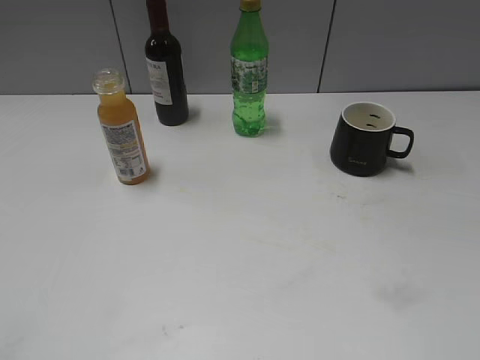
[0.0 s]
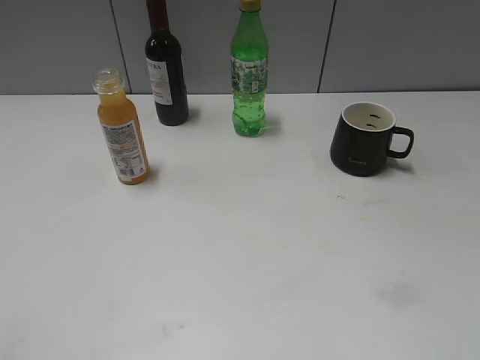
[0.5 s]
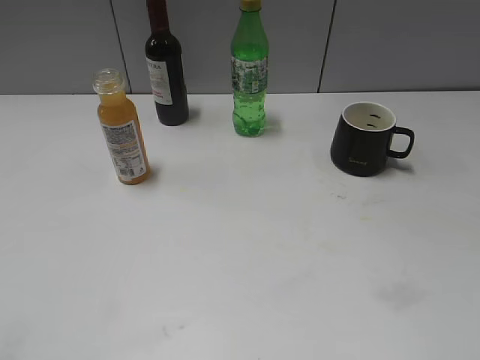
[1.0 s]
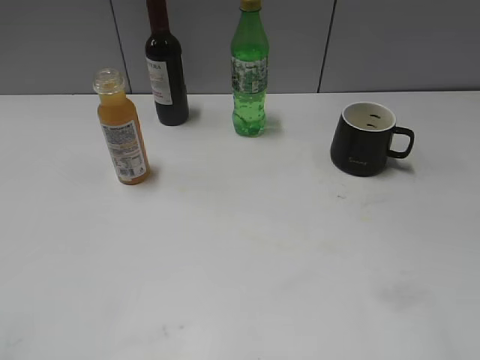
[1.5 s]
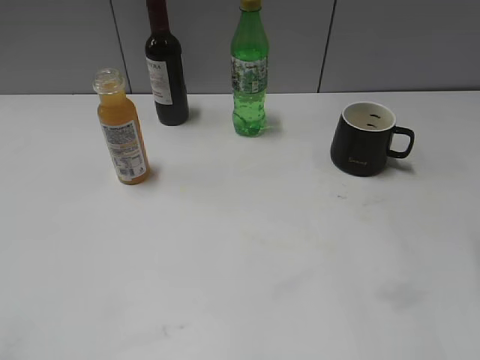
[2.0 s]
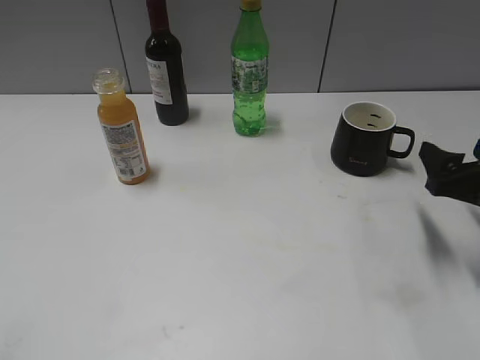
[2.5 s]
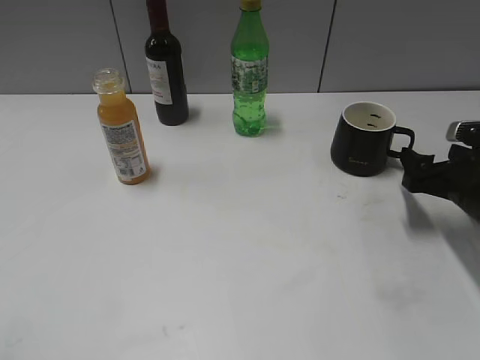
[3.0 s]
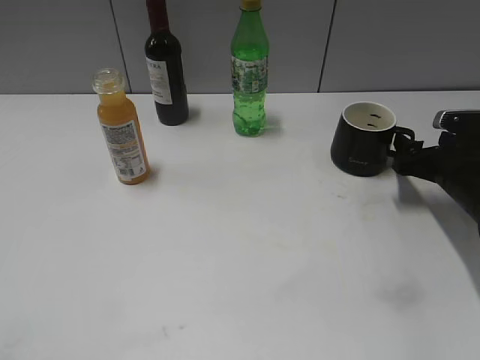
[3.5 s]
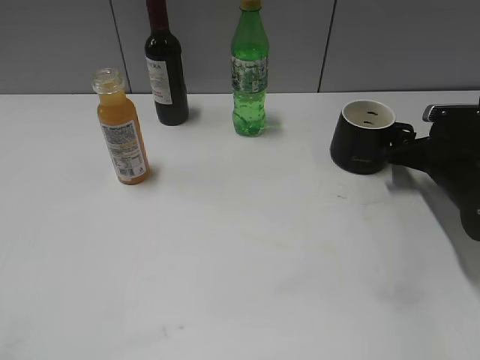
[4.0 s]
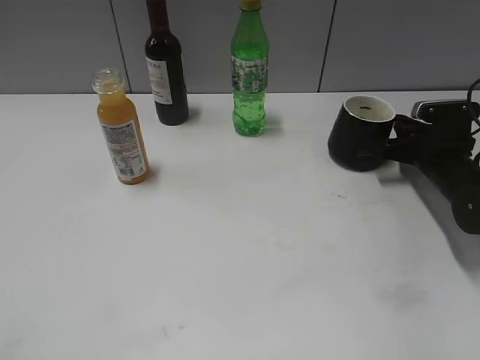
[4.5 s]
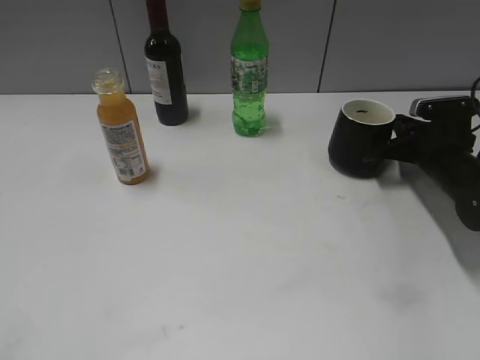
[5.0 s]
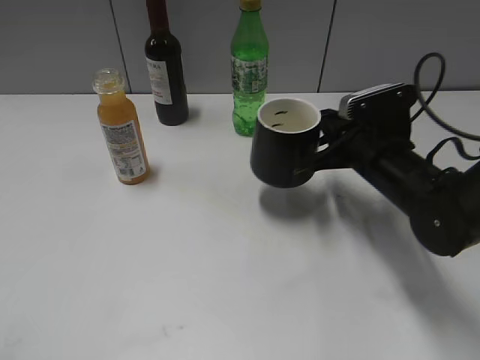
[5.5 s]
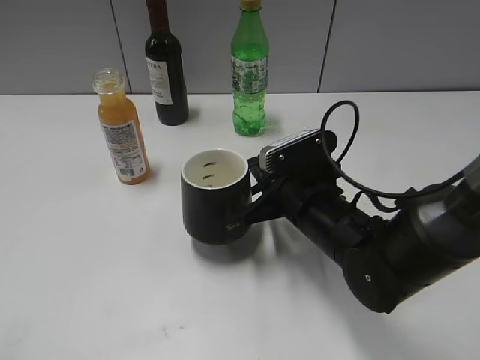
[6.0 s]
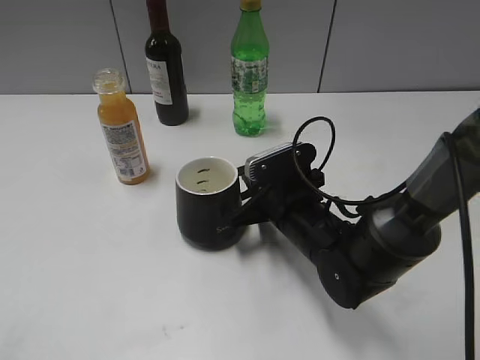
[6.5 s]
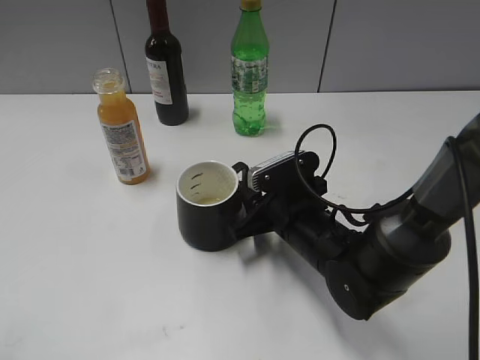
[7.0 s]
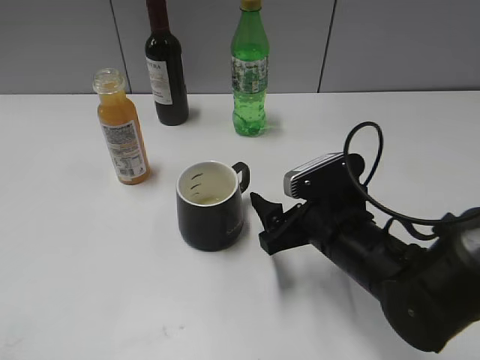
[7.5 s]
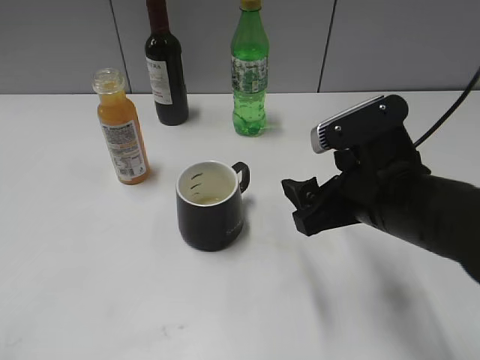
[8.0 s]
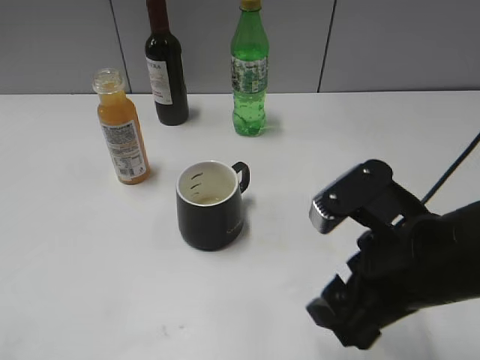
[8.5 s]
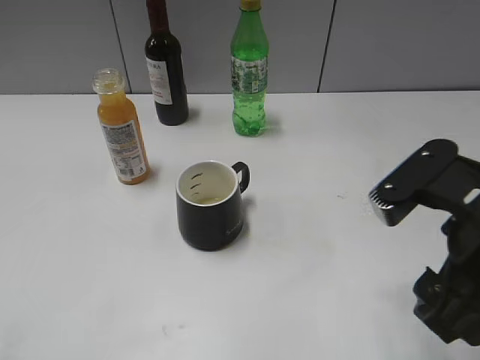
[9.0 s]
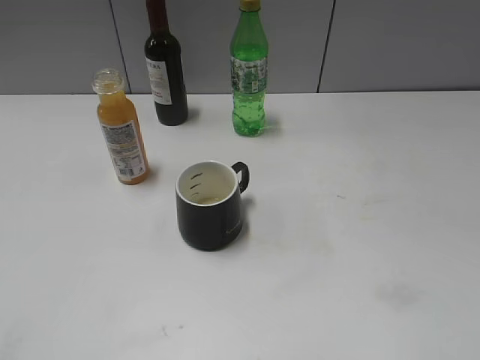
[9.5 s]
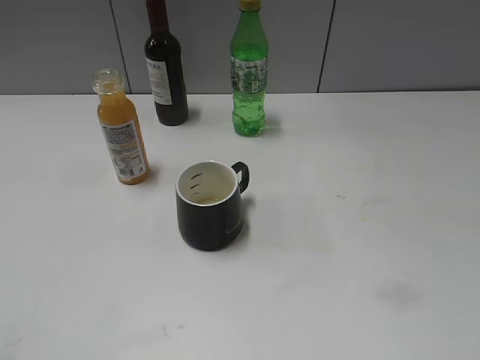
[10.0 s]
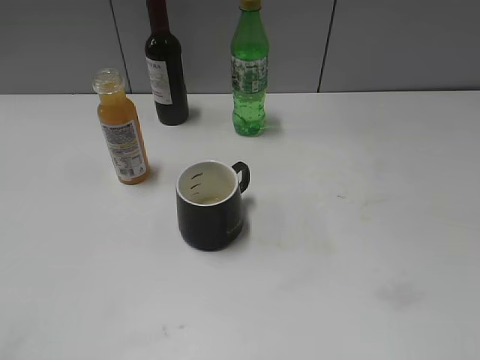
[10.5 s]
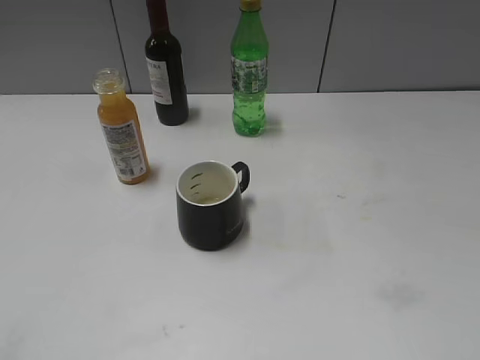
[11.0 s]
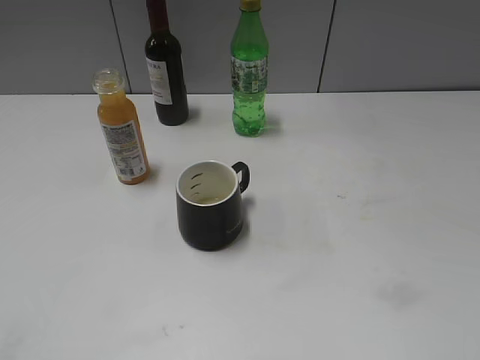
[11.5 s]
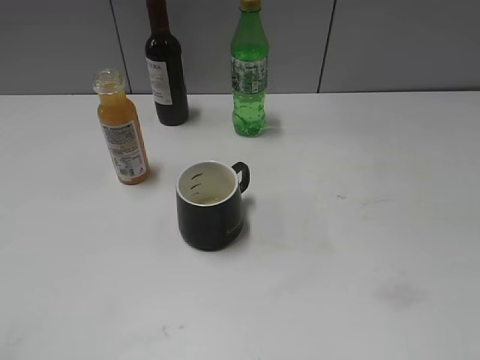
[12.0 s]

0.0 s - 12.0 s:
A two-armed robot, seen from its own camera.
Step, 2.5 s - 4.5 s: Grasp the black cup with right gripper.
Step, 5.5 s - 7.0 s: Place the black cup in the center of view with right gripper.
2.0 s - 4.0 s: The right gripper moves forward and downward, roughly 30 cm.
4.0 s - 6.0 s: The right gripper is displaced to the left and backward by some 20 cm, and closes up.
6.0 s - 8.0 s: The right gripper shifts some 10 cm upward and backward, and opens.
8.0 s - 10.0 s: The right gripper heads backward, to the right and upward, covering roughly 25 cm.

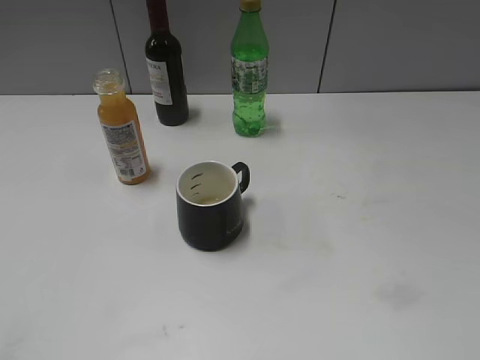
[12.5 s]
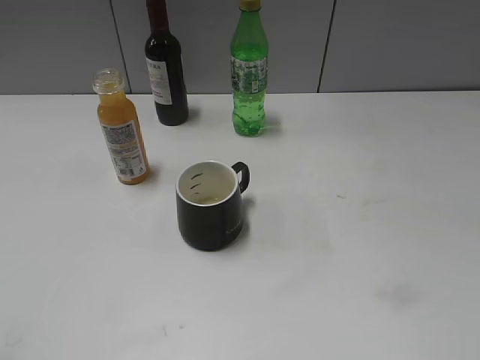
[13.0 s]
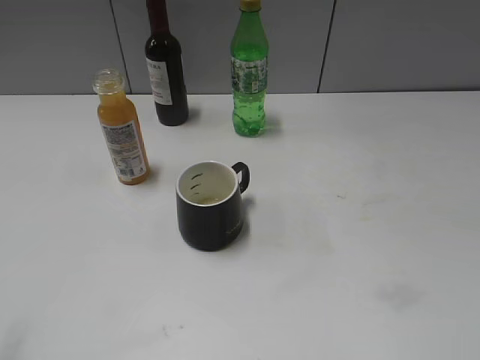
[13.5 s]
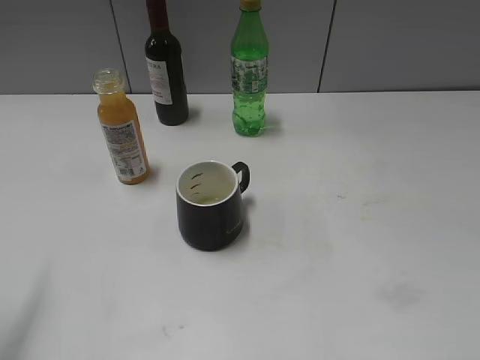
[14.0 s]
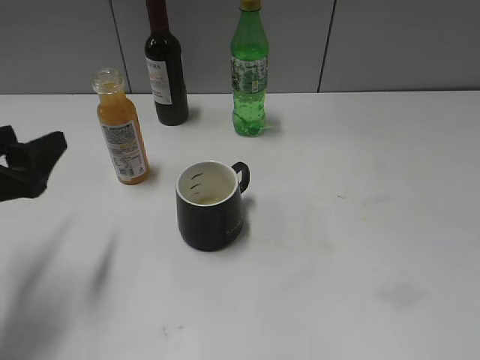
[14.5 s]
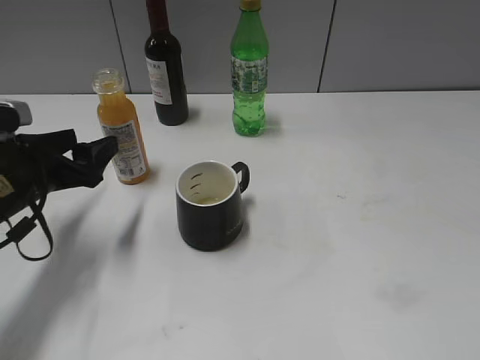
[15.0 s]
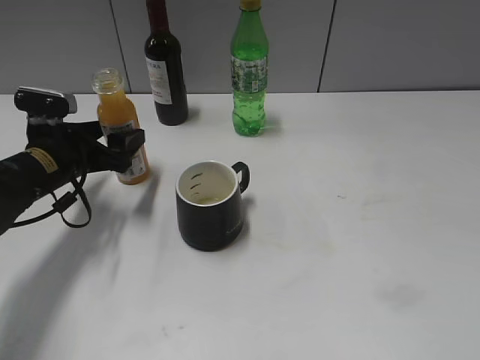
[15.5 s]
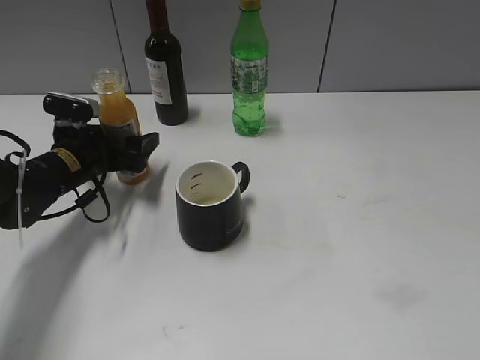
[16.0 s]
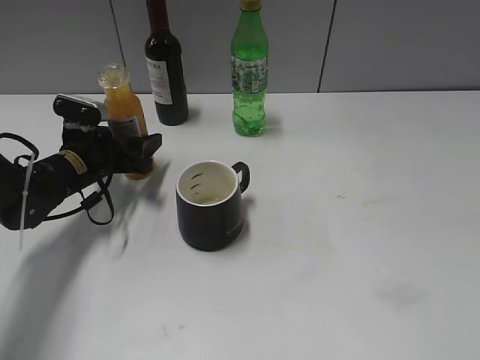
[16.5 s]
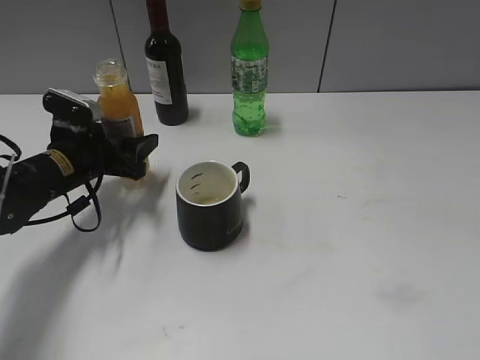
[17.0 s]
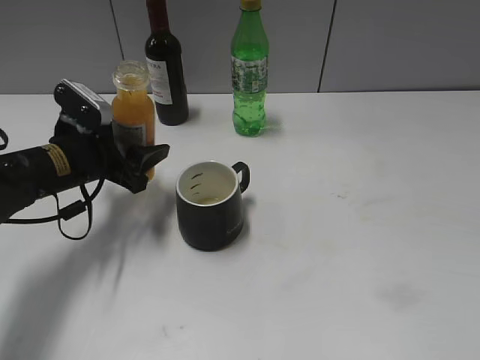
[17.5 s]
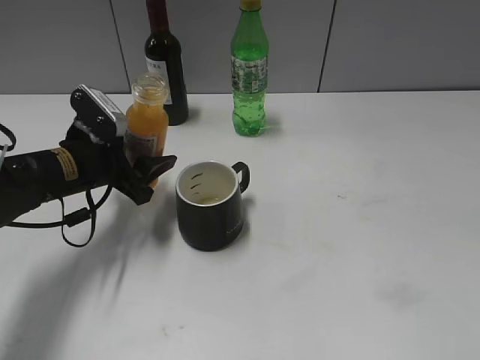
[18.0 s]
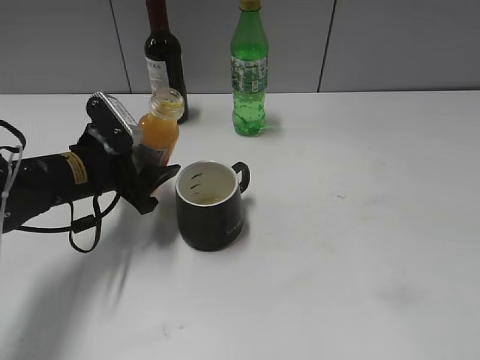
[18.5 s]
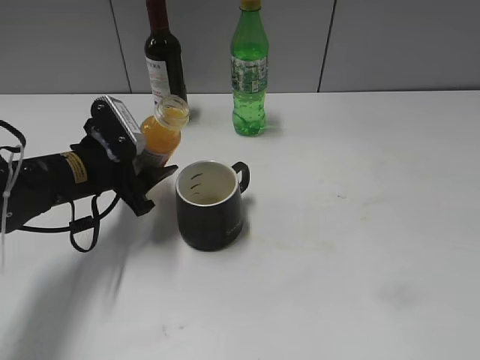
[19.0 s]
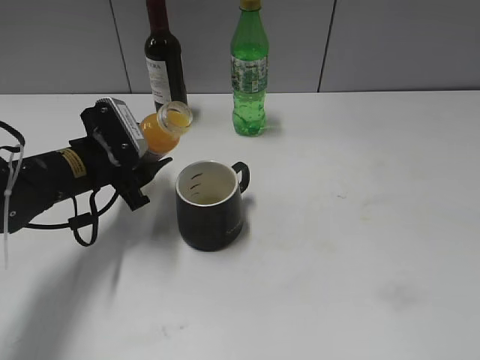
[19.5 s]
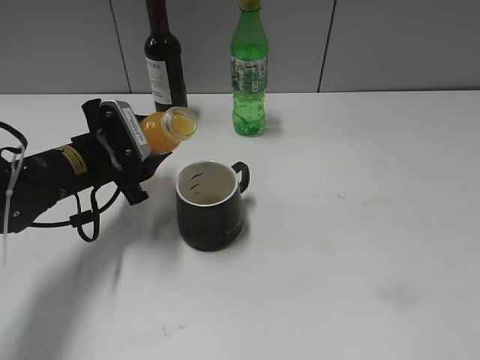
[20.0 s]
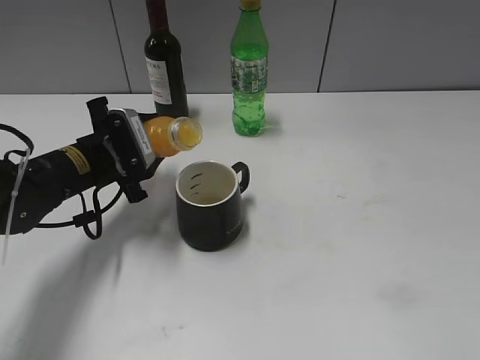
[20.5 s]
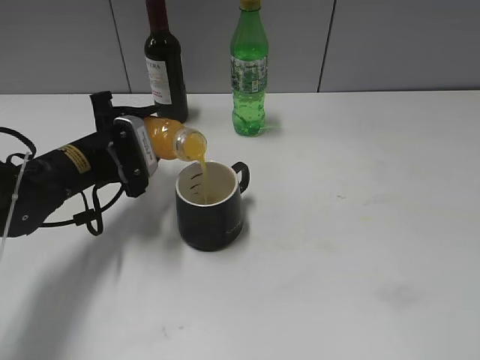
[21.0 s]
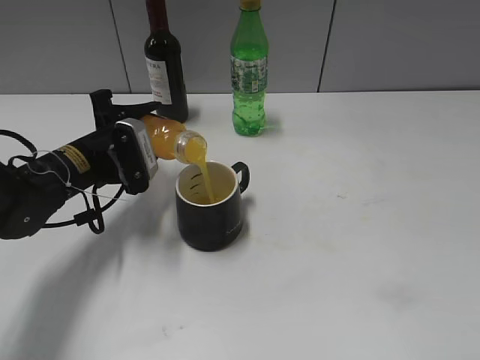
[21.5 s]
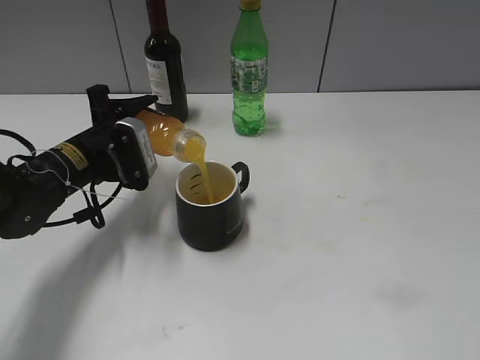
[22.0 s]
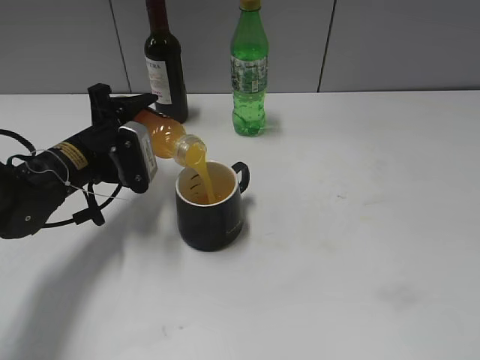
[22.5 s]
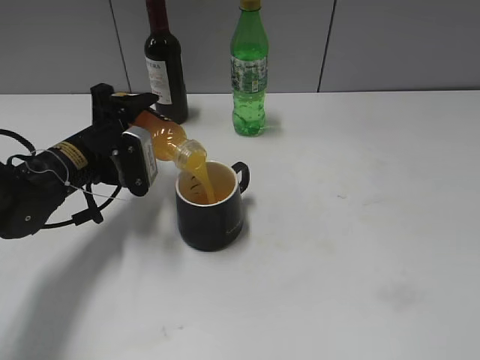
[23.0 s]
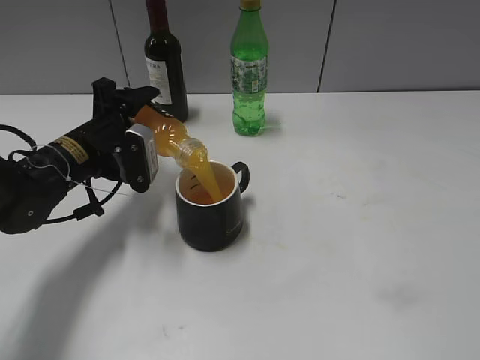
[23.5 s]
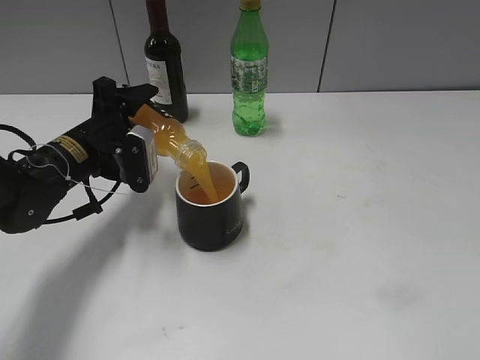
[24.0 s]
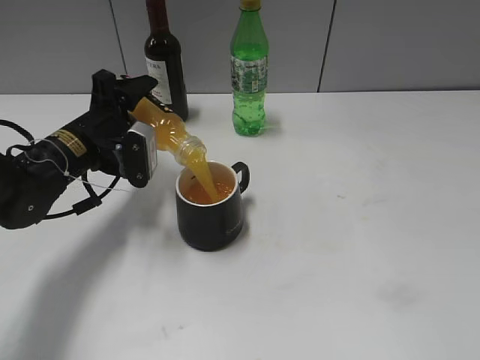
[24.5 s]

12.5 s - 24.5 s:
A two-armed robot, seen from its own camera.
Step, 12.5 s - 16.5 s: Grasp the bottle with orange juice with left gripper.
12.5 s - 14.5 s: The left gripper travels forward by approximately 20 cm, and opens up.
14.5 s - 16.5 s: The left gripper travels forward and downward by roughly 20 cm.
16.5 s - 18.5 s: The left gripper travels backward by approximately 5 cm.
22.5 s - 24.5 s: The grippers stay close to where they were, moving slightly.

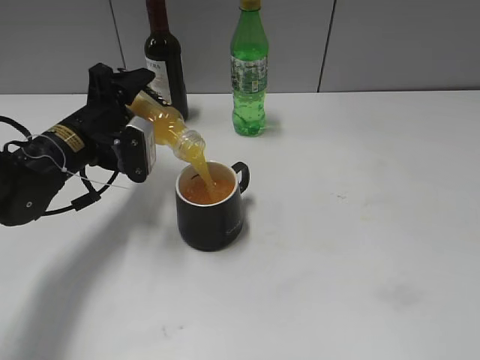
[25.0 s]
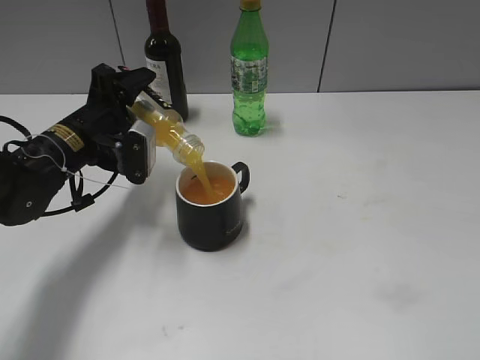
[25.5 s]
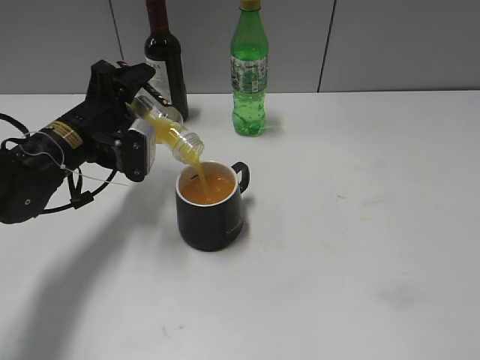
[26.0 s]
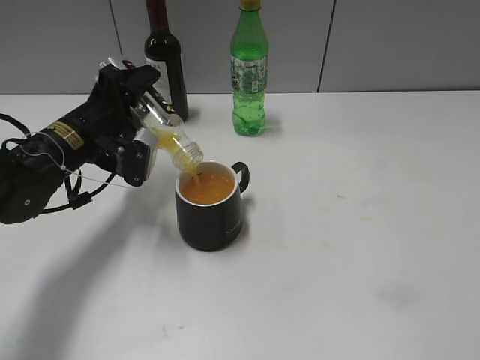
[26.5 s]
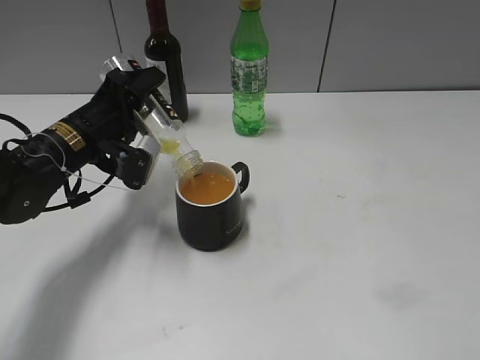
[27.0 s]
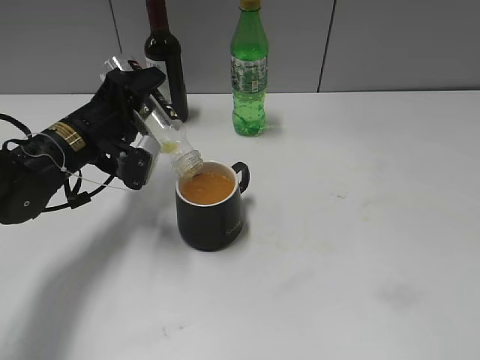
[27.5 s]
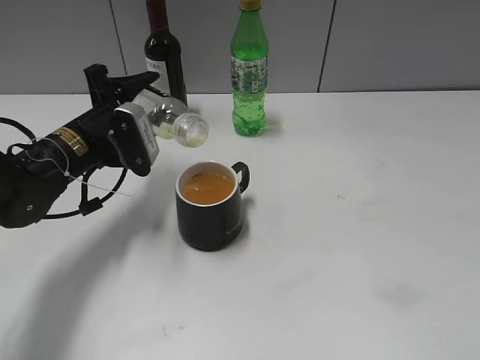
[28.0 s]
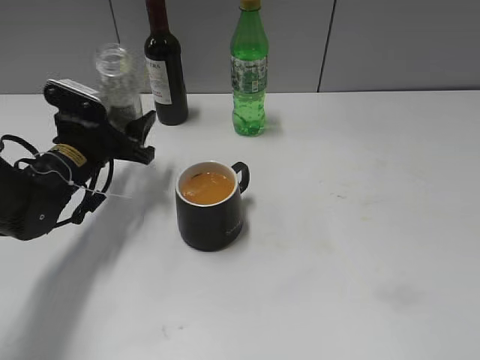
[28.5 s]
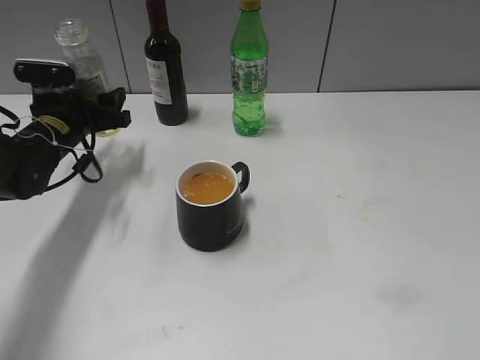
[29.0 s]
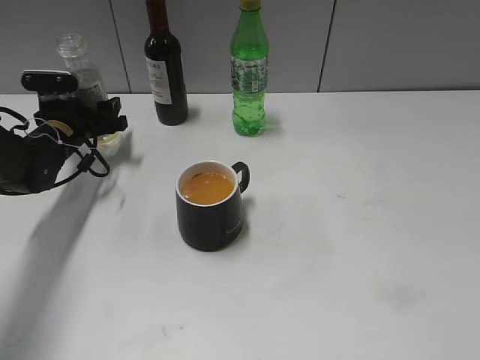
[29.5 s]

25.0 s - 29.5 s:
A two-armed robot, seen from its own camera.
Step, 25.0 s - 27.5 s: Pour the orange juice from bottle to cup with left gripper.
25.0 s - 27.0 s: The grippers make only small movements.
27.0 s - 29.5 s: The left gripper travels forward, to the left and downward by about 10 cm.
